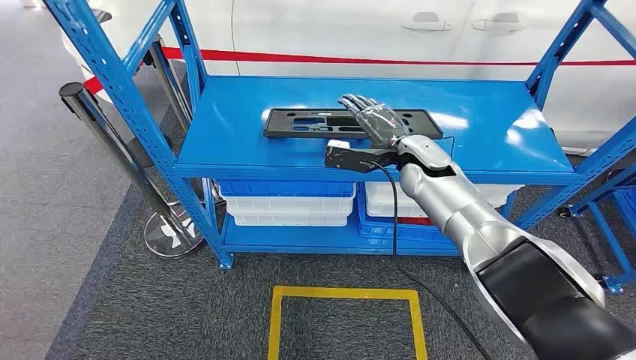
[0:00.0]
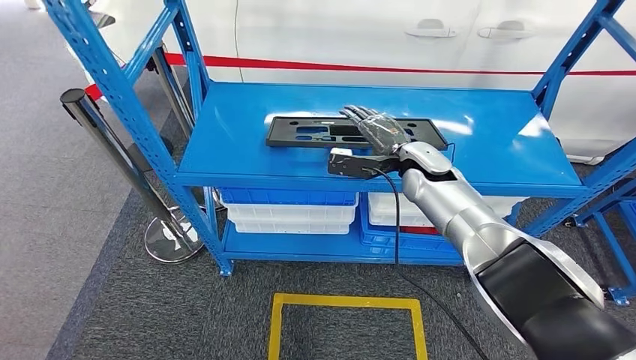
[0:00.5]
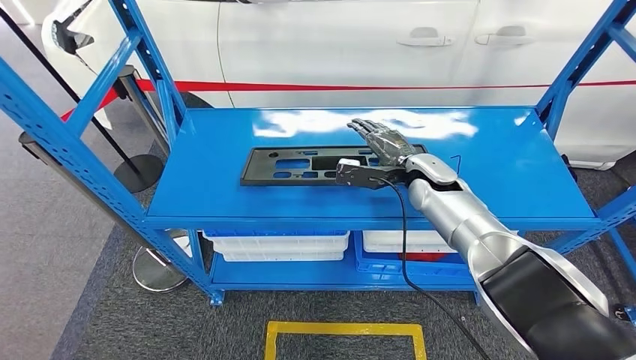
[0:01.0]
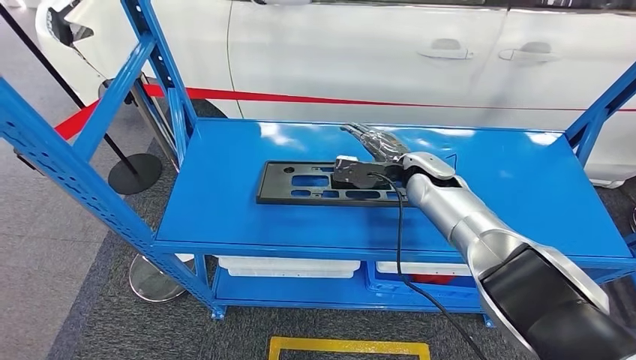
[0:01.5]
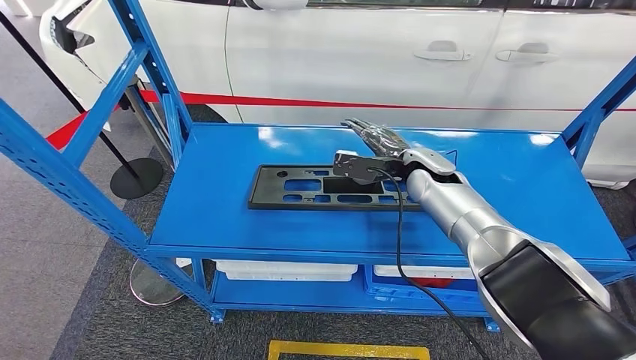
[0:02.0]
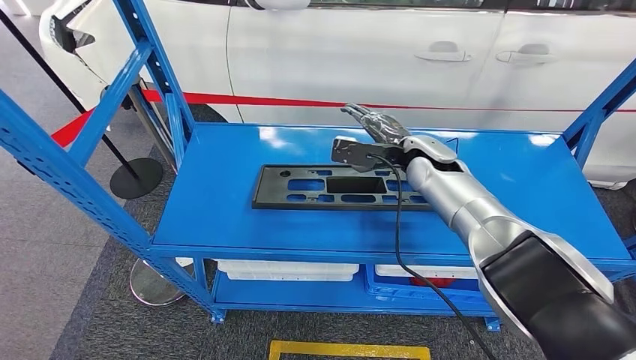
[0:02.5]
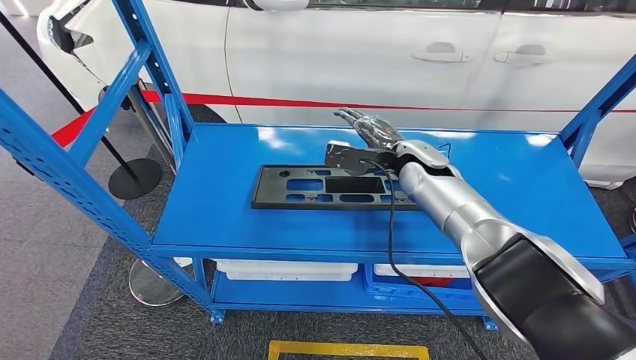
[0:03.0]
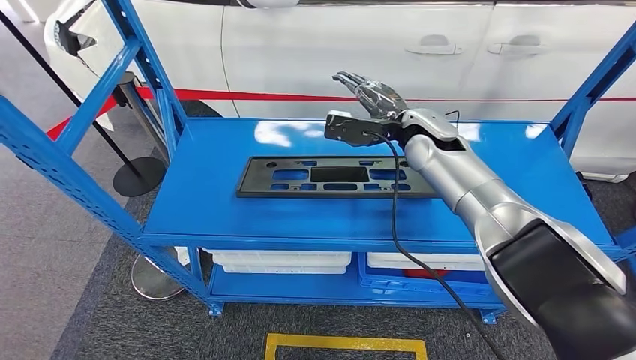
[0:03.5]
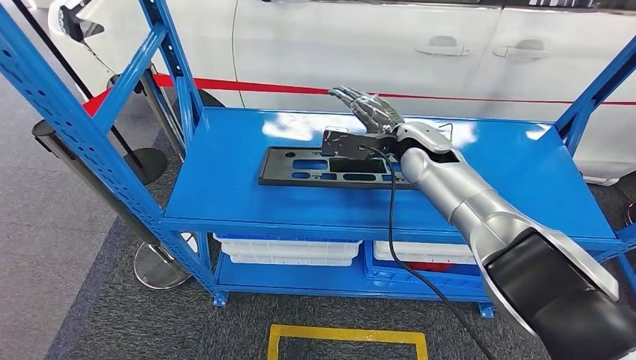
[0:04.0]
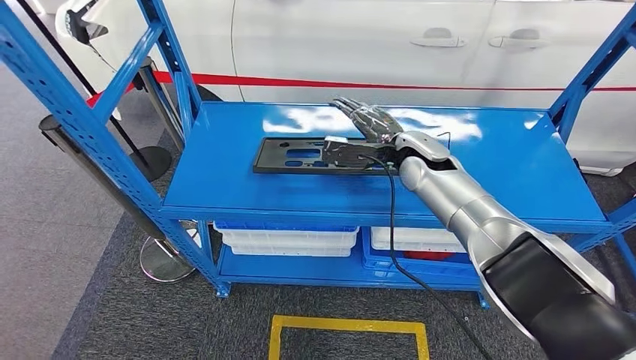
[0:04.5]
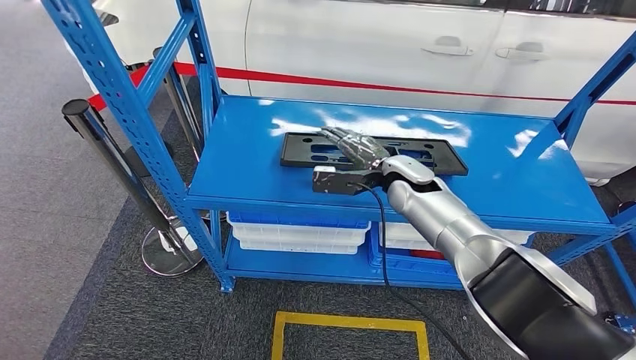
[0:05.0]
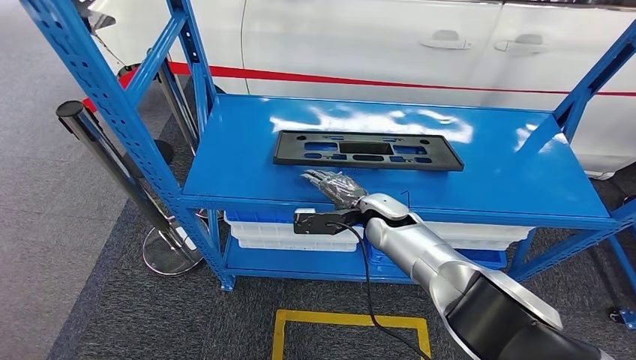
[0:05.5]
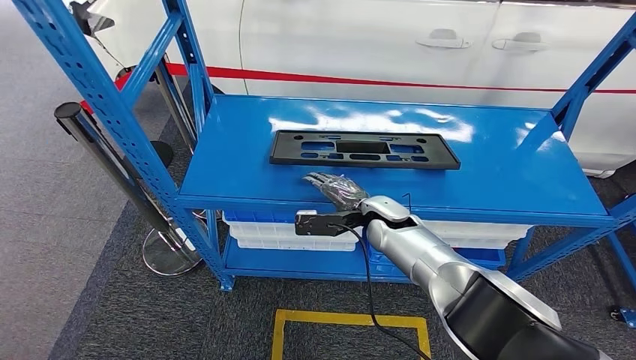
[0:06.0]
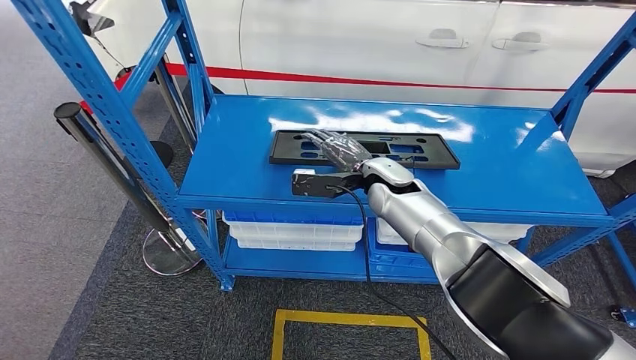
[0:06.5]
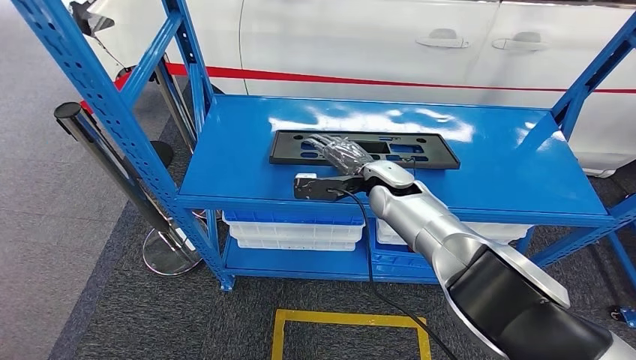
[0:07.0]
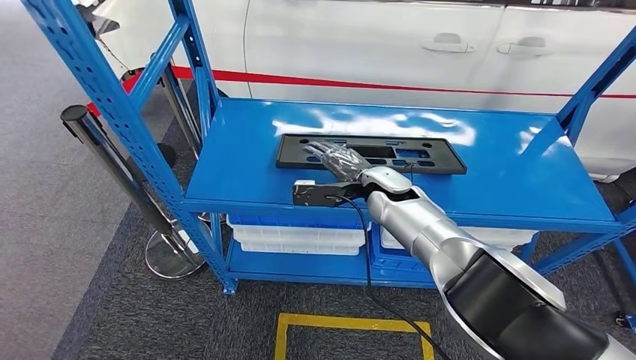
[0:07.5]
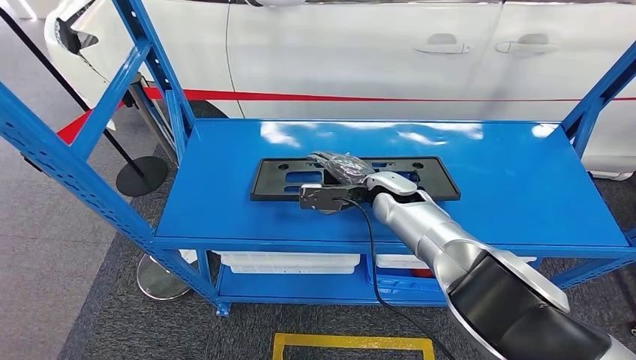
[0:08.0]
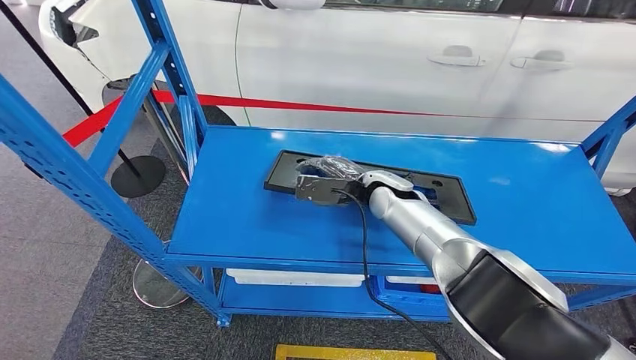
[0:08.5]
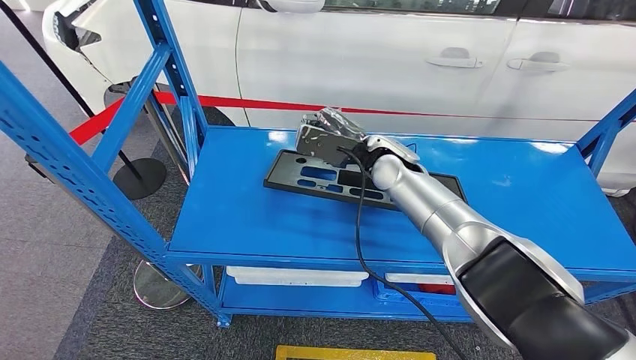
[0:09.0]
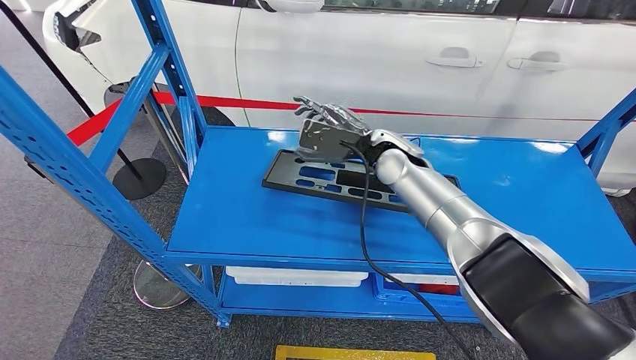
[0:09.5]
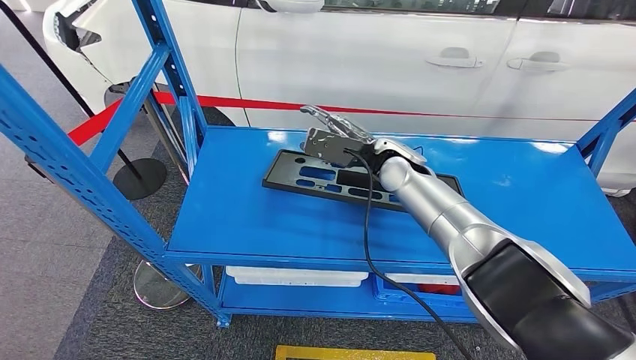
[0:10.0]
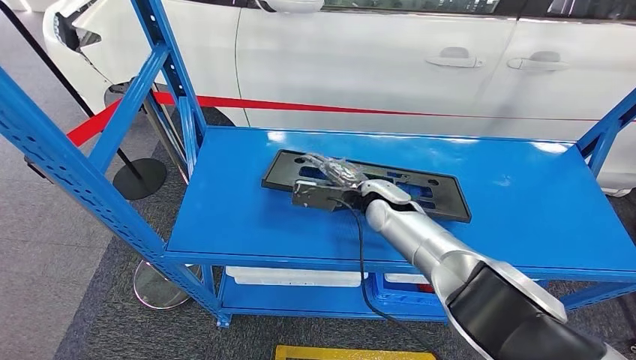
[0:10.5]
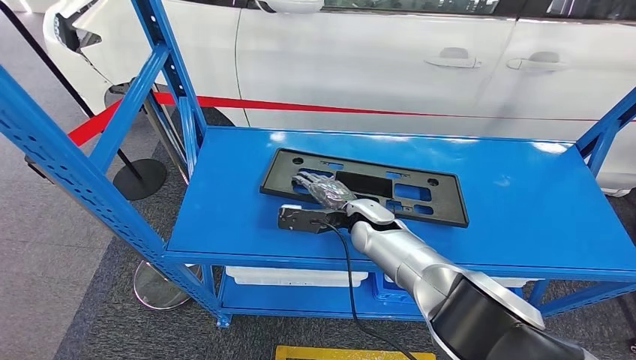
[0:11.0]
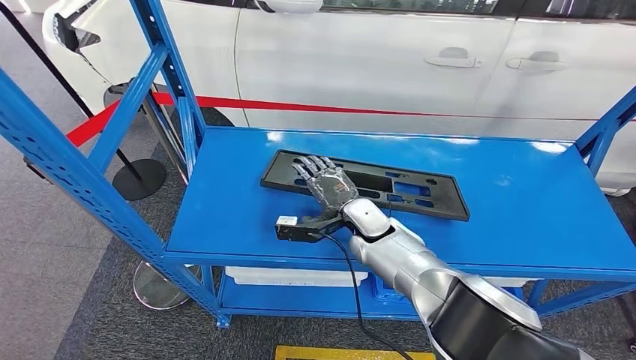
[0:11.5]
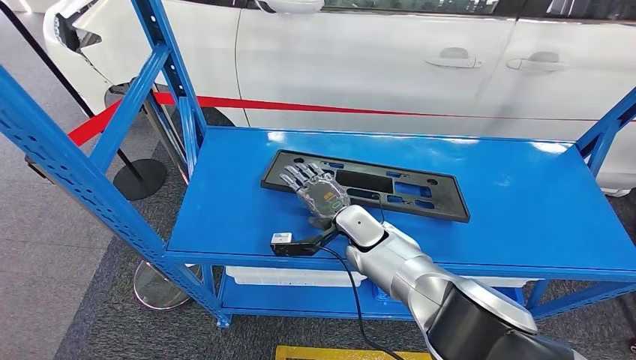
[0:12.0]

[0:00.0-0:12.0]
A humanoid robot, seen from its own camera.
0:10.0 to 0:12.0: The right hand shifts some 15 cm downward, to the left and backward.

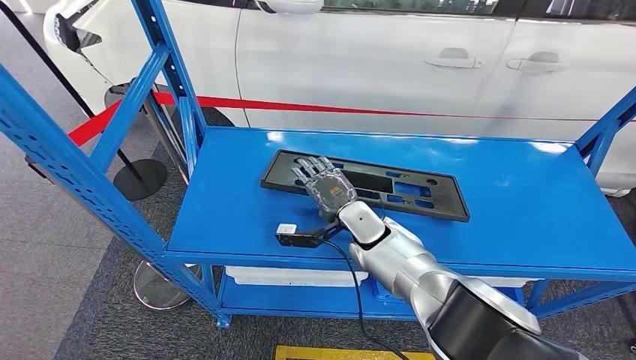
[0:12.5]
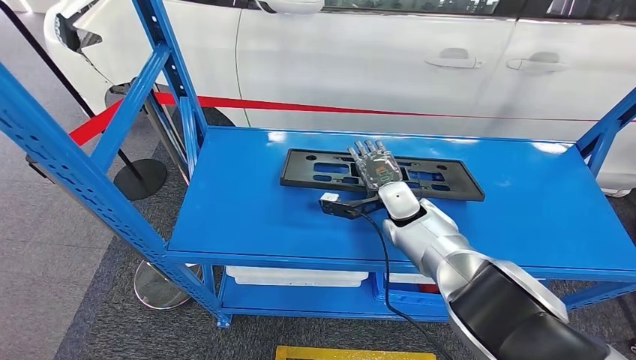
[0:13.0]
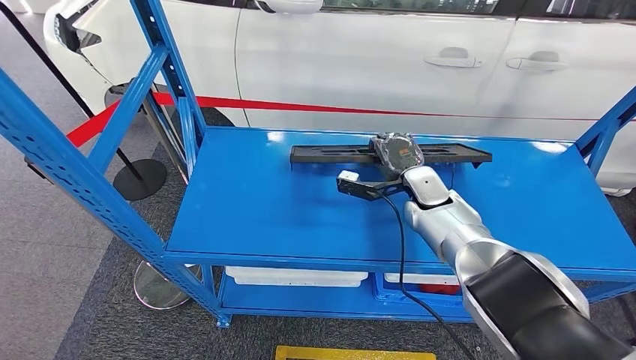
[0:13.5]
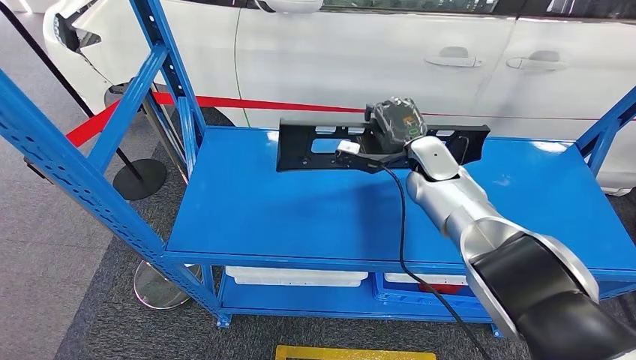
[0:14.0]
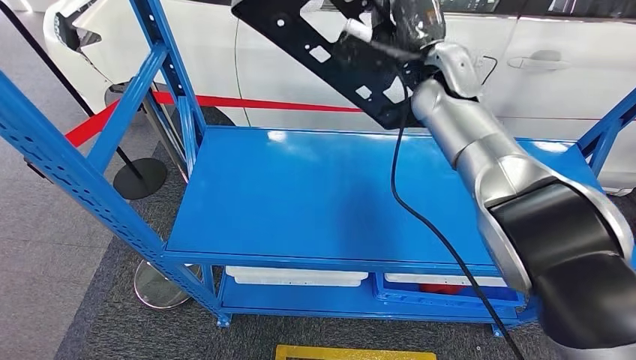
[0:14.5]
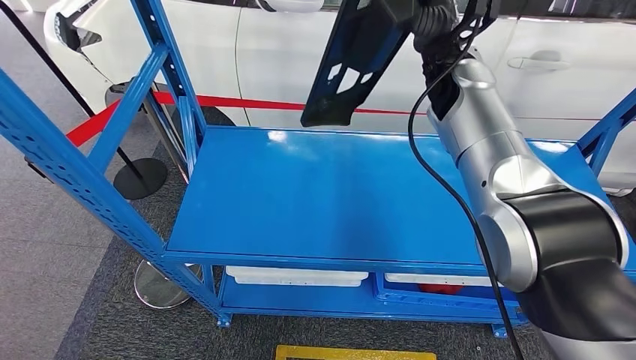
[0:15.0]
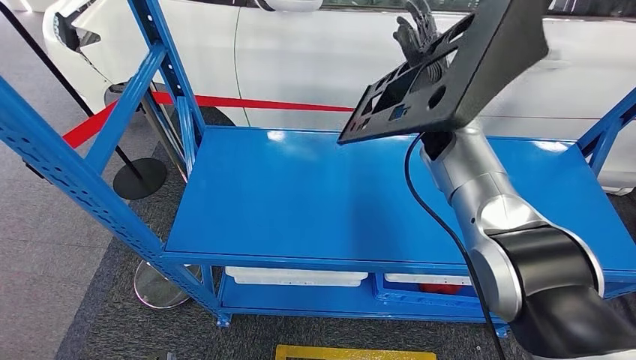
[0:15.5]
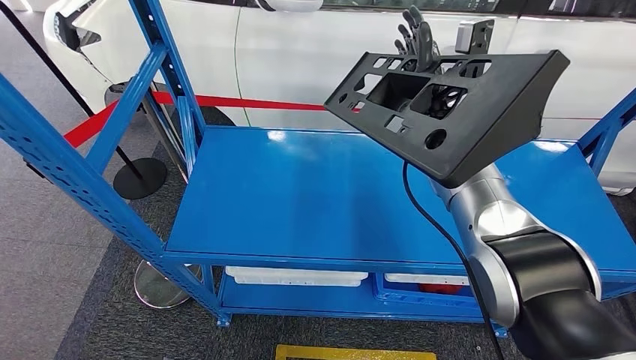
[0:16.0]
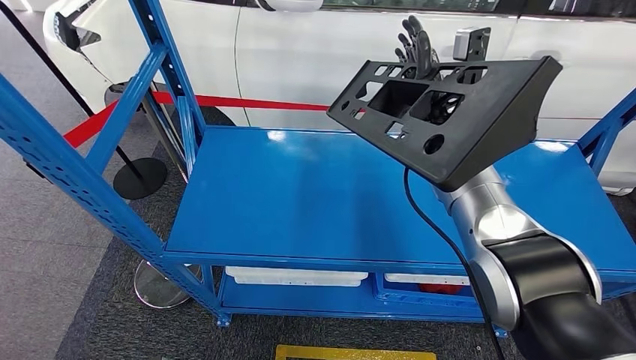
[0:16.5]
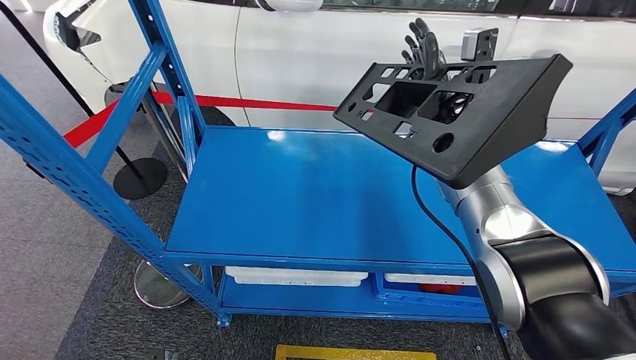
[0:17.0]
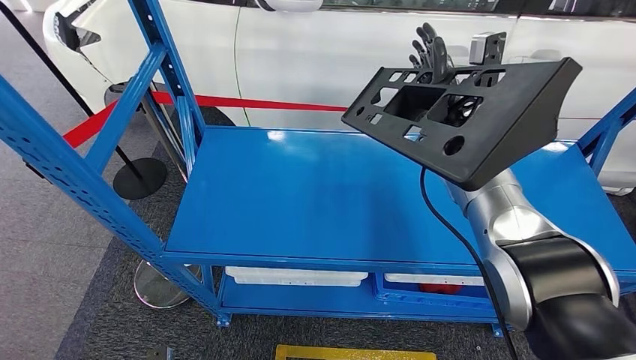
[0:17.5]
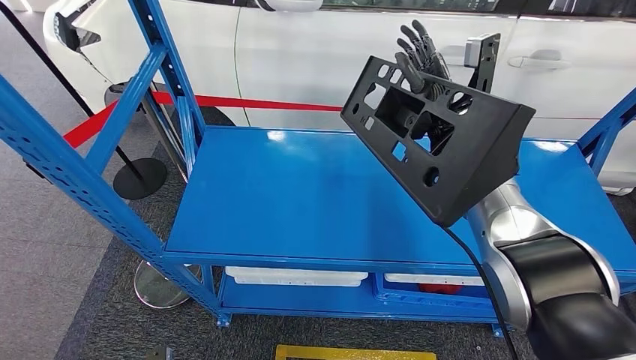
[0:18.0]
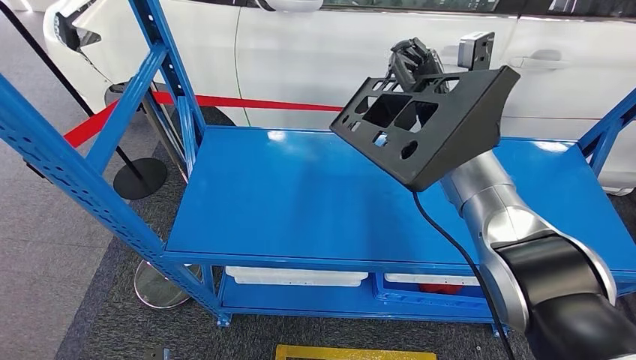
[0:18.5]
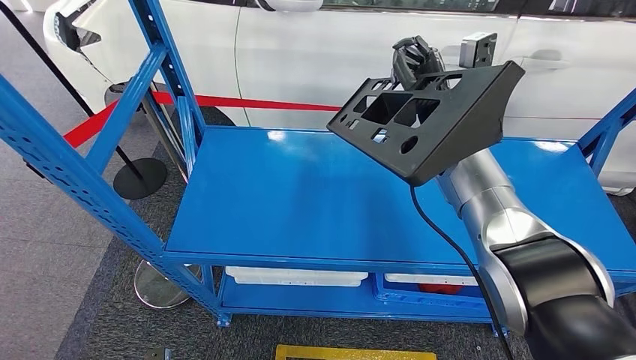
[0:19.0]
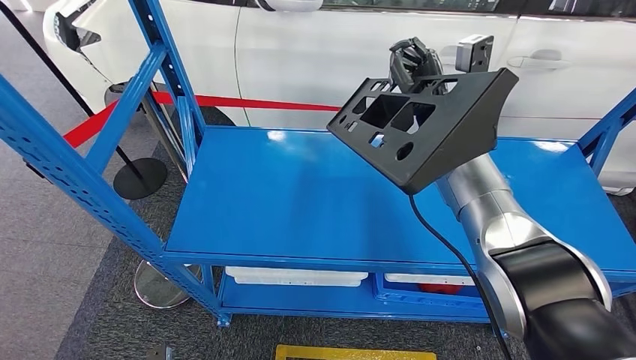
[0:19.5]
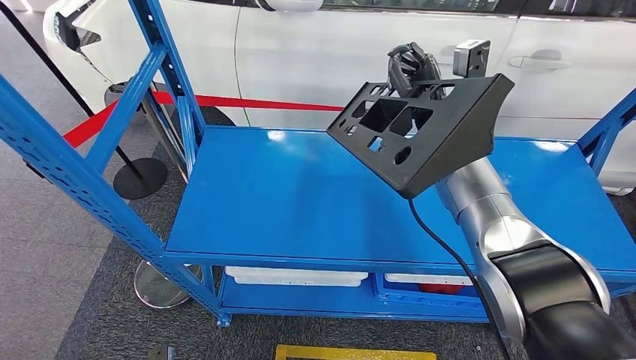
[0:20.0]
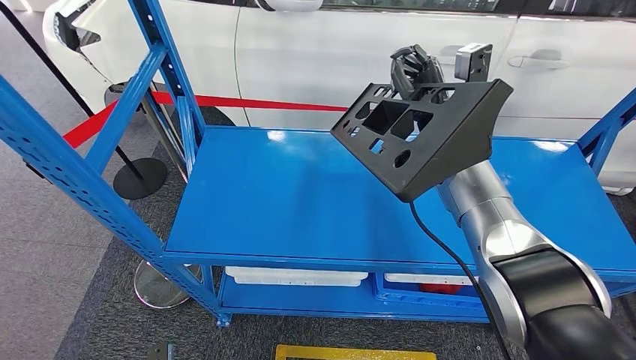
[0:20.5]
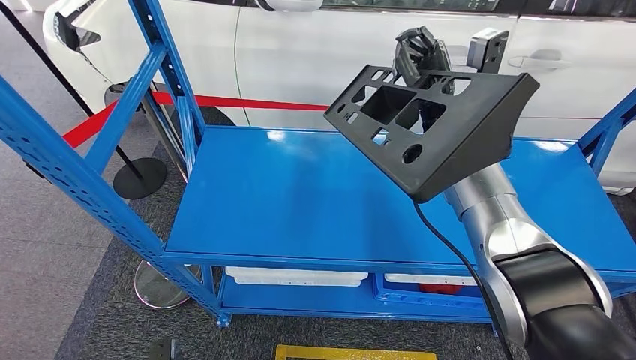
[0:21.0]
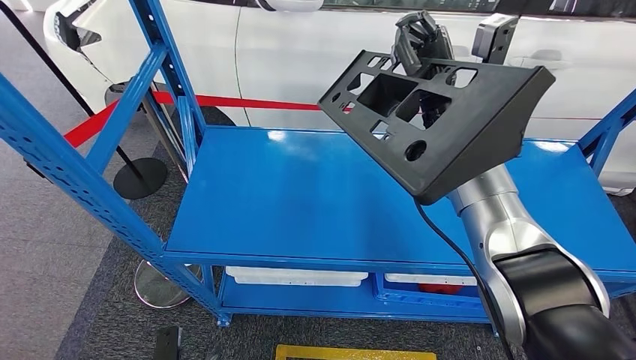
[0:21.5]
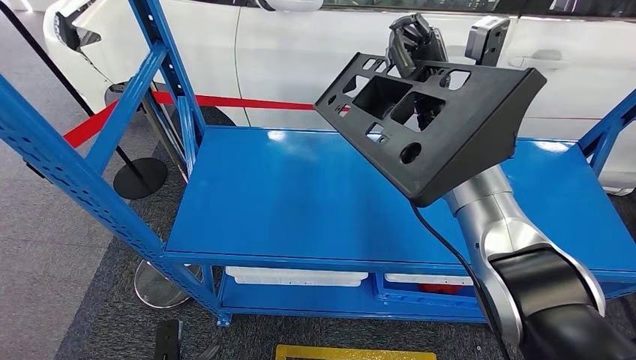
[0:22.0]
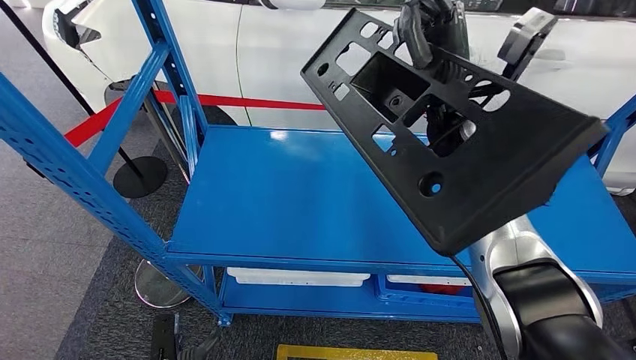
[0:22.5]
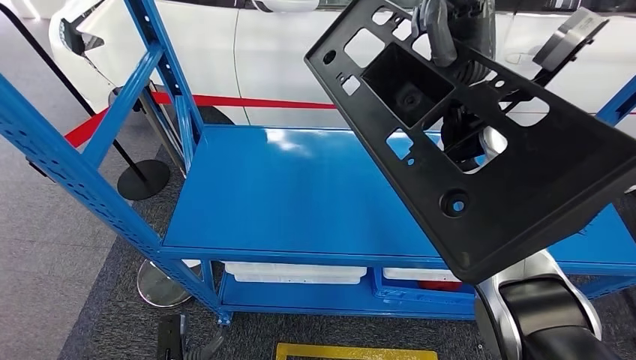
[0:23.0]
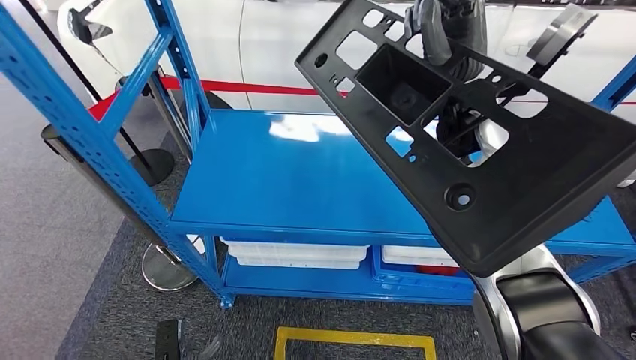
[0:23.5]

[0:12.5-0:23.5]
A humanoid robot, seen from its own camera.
Step, 0:12.5 to 0:15.5: Pick up the large parts from the shelf.
0:16.0 to 0:21.5: The hands make only small movements.
